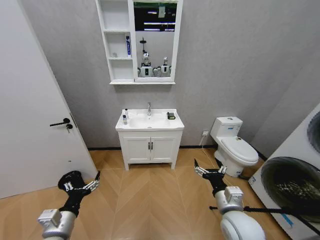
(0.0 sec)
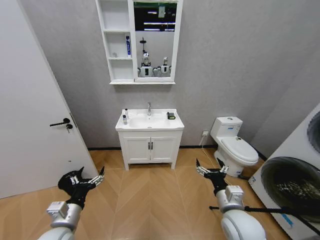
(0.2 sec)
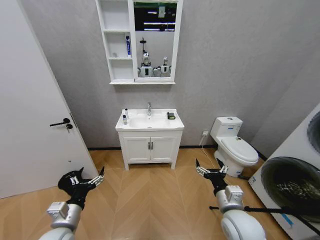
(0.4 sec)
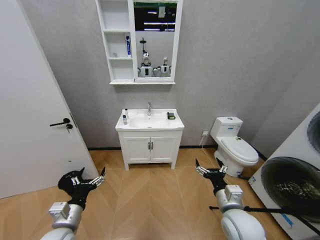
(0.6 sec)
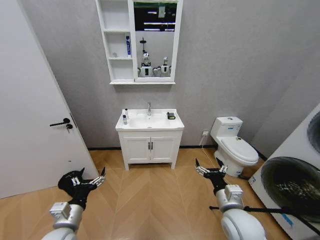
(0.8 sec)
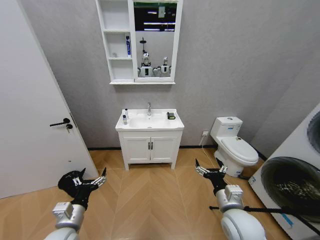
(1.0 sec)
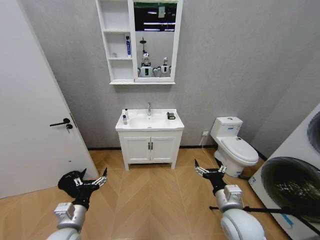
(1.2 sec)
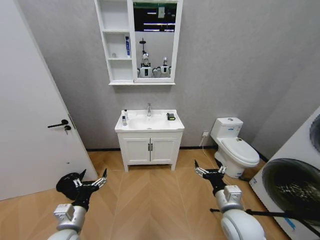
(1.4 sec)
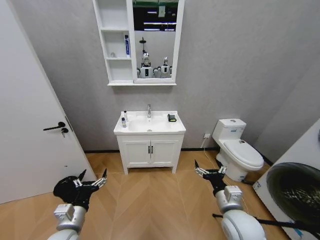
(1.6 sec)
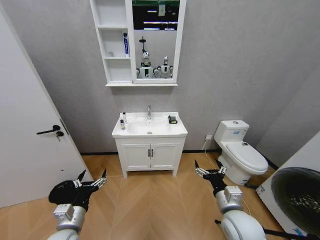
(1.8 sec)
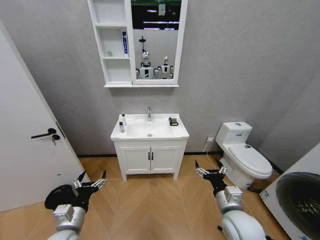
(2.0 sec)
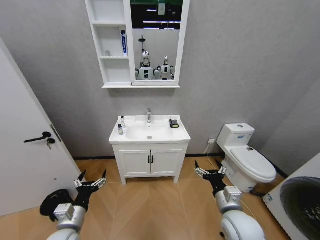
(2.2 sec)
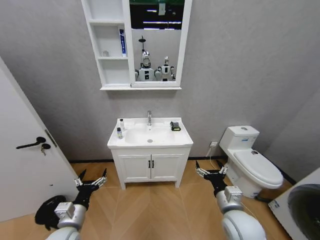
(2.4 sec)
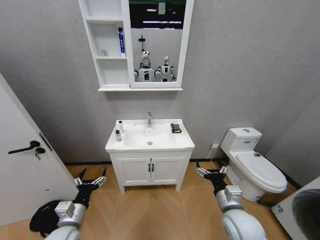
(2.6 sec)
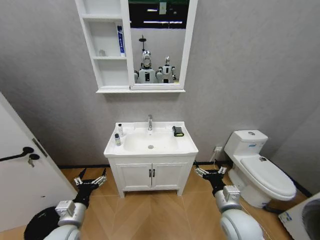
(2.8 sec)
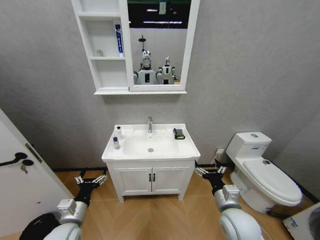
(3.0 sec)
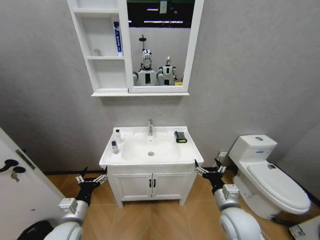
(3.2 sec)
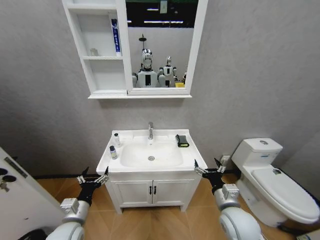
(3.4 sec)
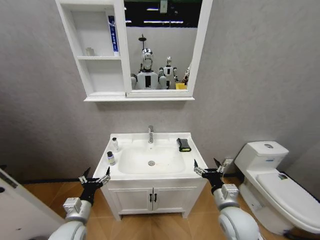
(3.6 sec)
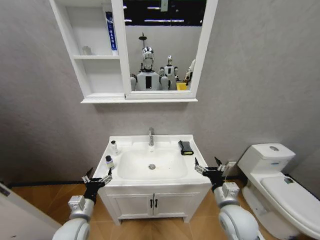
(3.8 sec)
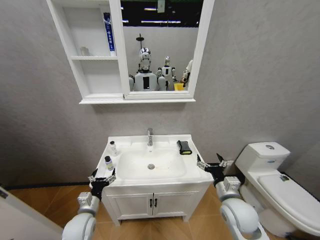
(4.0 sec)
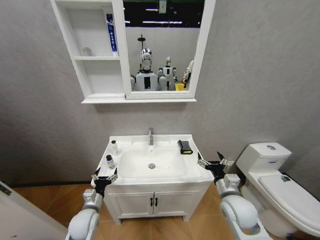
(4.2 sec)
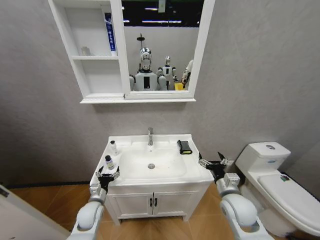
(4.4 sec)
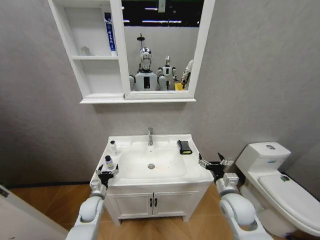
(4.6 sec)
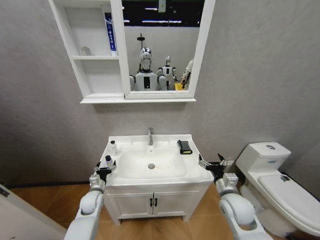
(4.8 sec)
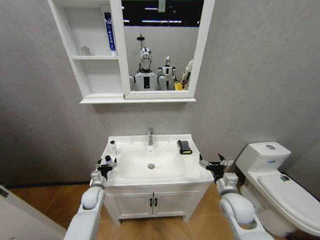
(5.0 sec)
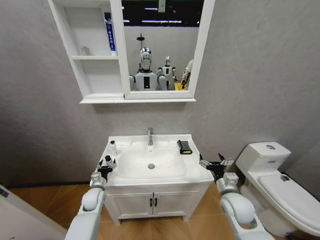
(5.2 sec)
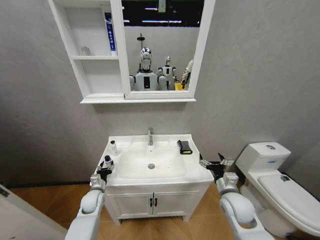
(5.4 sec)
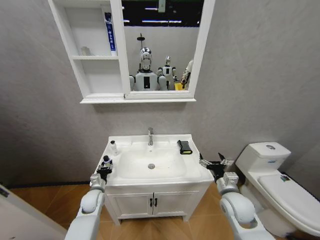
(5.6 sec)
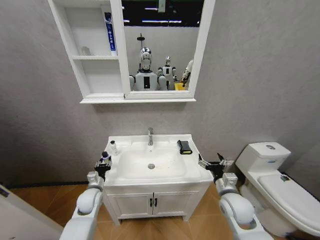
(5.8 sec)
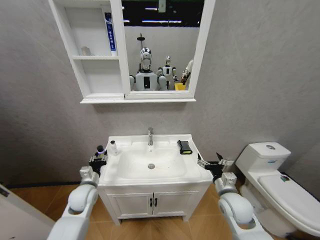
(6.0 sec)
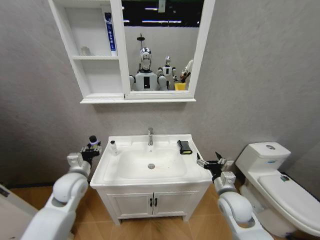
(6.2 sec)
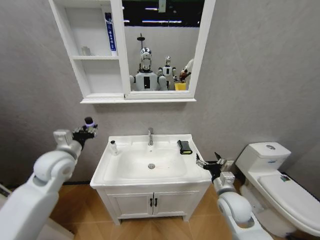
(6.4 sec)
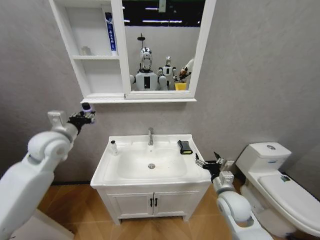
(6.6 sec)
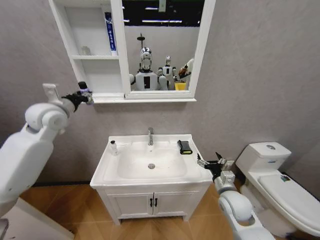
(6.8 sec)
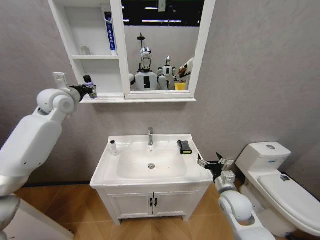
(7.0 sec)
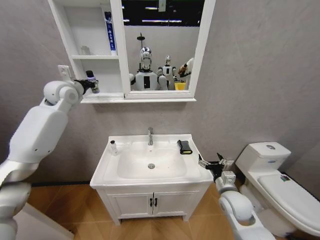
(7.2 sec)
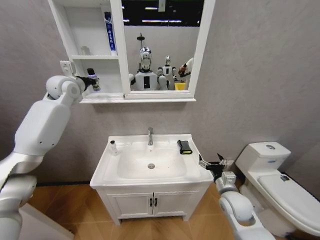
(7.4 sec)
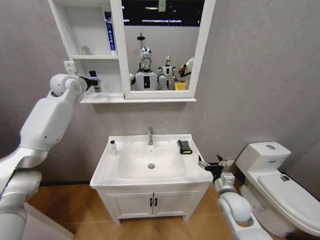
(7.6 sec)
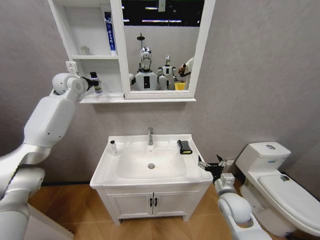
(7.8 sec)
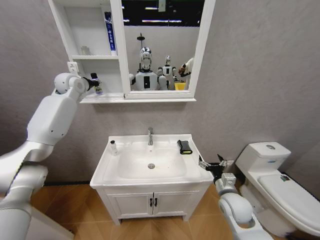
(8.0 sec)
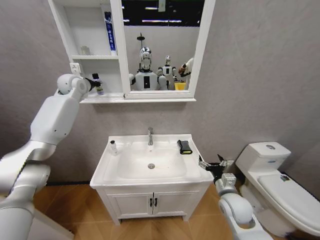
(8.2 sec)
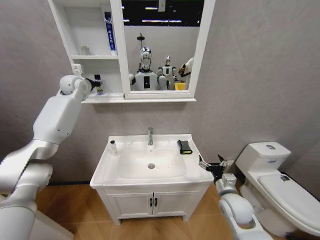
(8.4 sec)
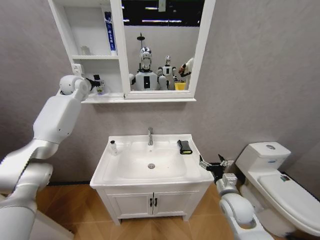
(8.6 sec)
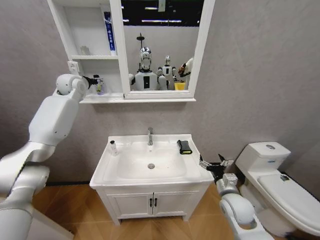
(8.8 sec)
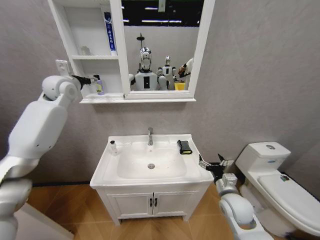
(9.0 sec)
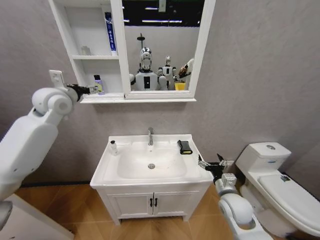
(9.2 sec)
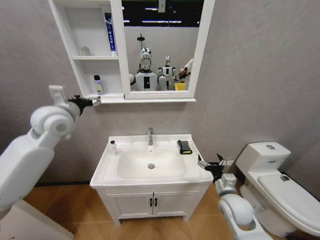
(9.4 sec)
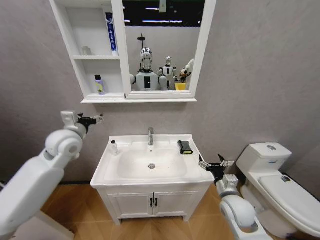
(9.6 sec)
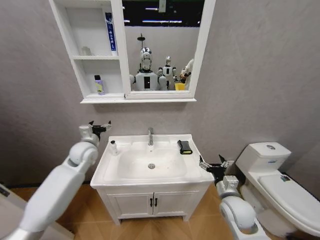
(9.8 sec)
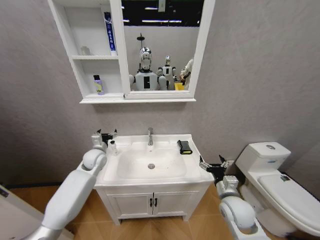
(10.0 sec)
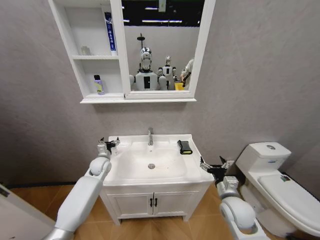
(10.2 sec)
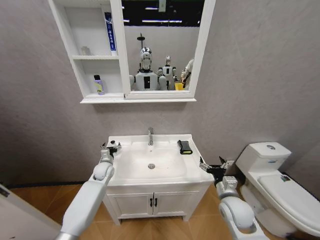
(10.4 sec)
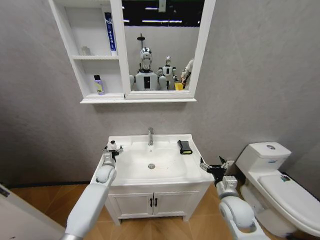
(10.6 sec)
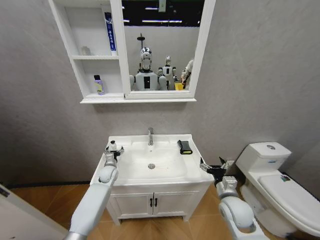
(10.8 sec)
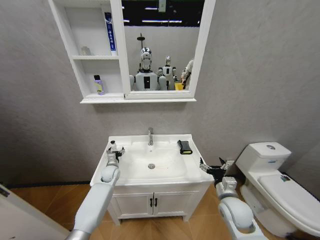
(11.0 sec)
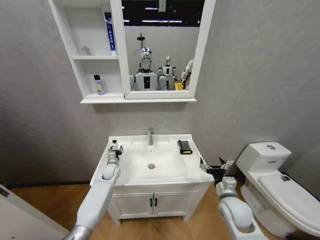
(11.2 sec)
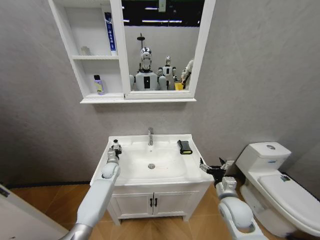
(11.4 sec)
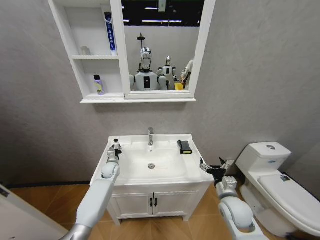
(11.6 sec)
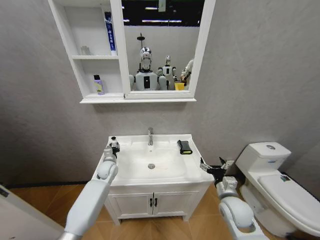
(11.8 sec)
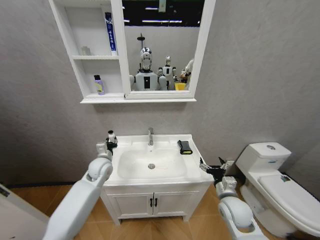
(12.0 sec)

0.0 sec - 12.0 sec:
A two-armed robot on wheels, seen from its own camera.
Task of the whole recording: Move facial cleanser and shampoo from washbasin to cabinet, then wipe washbasin with towel.
3.0 sec - 4.4 sec: The left gripper moves forward and downward, about 15 cm, while the right gripper moves roughly 5 cm.
4.4 sec - 6.0 sec: The left gripper shifts about 10 cm upward, and closes up.
6.0 sec - 7.6 sec: The left gripper heads upward and forward, covering some 40 cm.
7.6 sec - 9.0 sec: The left gripper opens.
9.0 sec - 10.4 sec: The left gripper moves downward, about 40 cm.
10.4 sec - 12.0 sec: The left gripper goes roughly 10 cm upward, and closes.

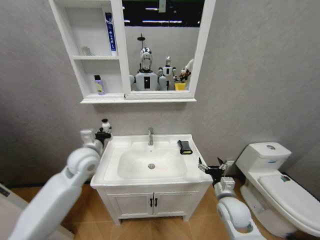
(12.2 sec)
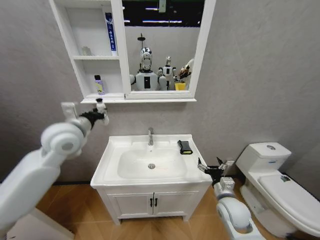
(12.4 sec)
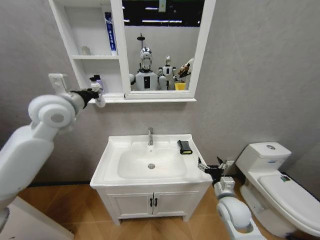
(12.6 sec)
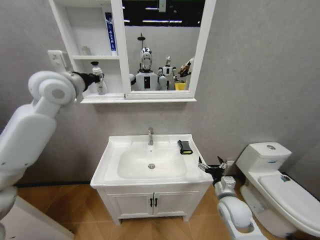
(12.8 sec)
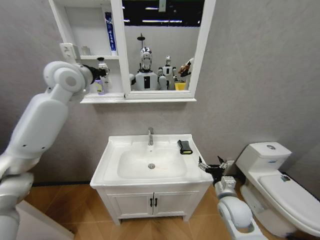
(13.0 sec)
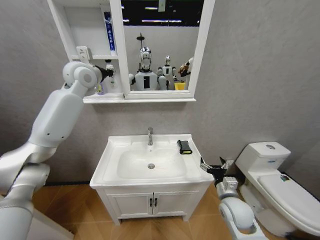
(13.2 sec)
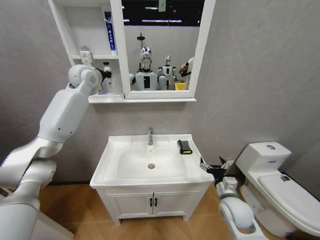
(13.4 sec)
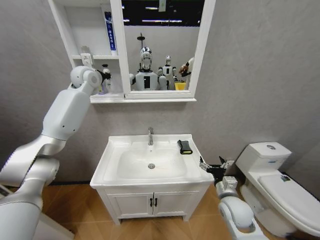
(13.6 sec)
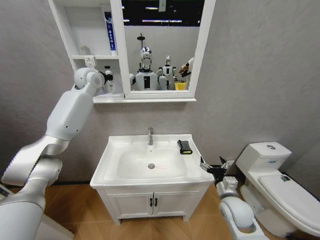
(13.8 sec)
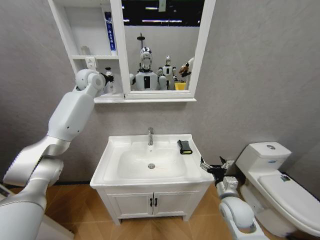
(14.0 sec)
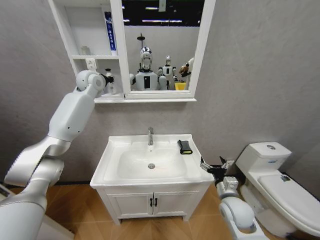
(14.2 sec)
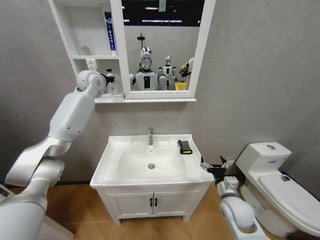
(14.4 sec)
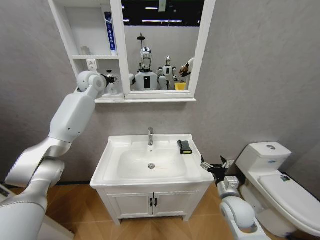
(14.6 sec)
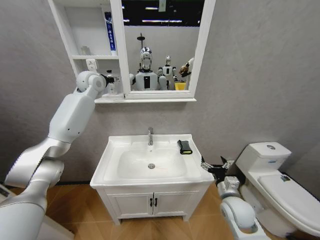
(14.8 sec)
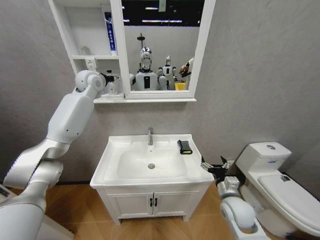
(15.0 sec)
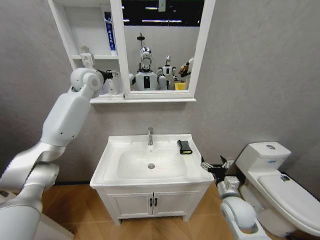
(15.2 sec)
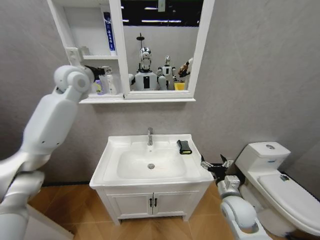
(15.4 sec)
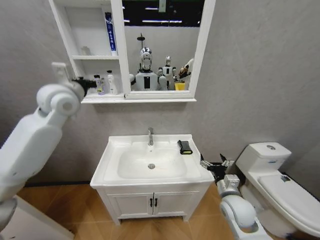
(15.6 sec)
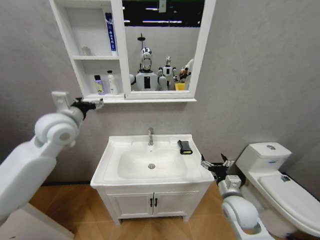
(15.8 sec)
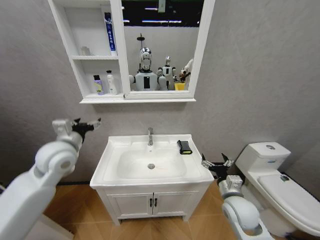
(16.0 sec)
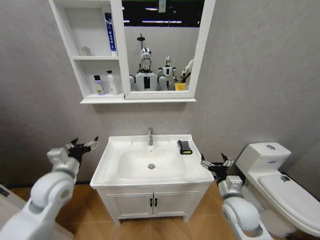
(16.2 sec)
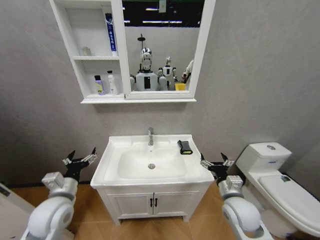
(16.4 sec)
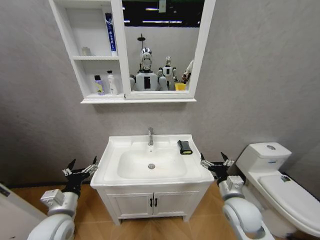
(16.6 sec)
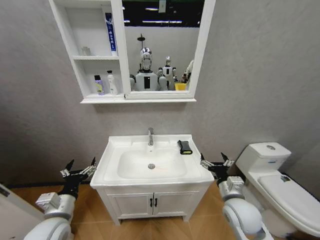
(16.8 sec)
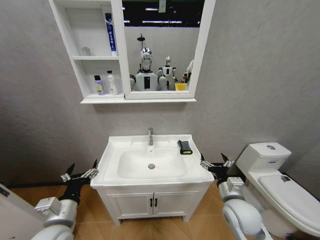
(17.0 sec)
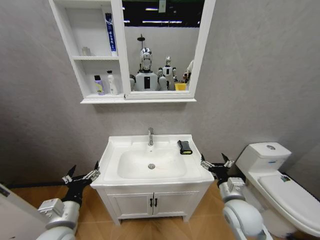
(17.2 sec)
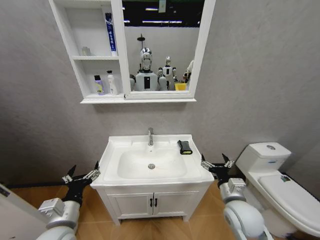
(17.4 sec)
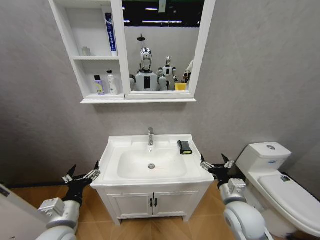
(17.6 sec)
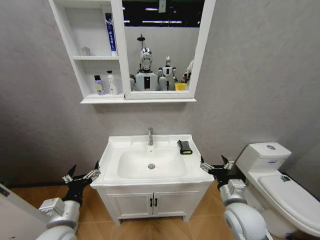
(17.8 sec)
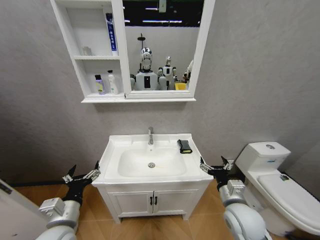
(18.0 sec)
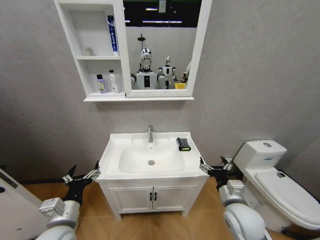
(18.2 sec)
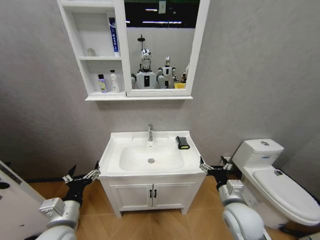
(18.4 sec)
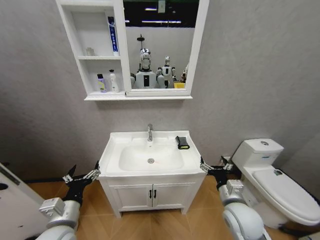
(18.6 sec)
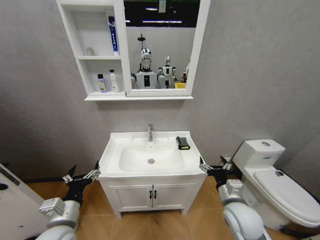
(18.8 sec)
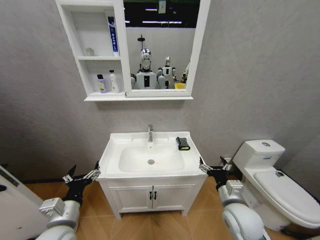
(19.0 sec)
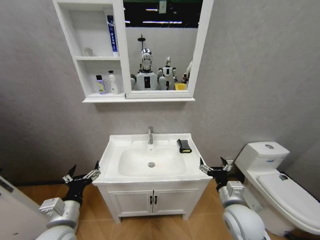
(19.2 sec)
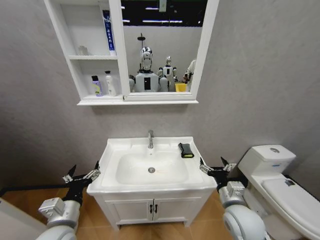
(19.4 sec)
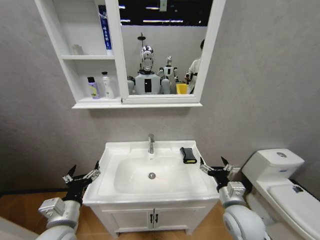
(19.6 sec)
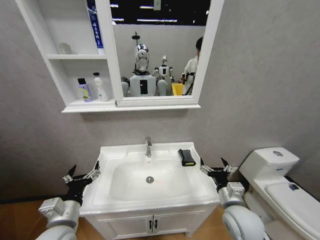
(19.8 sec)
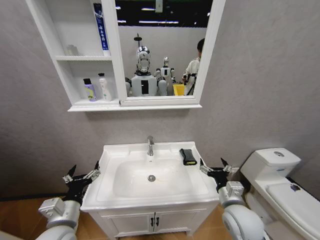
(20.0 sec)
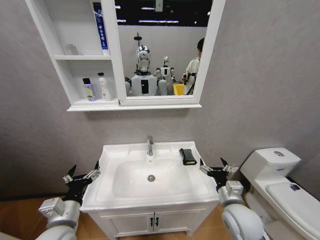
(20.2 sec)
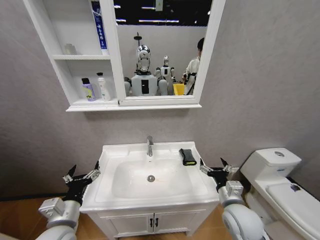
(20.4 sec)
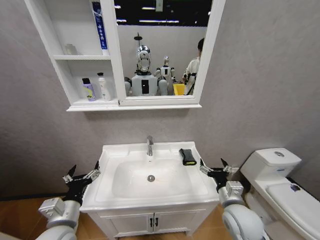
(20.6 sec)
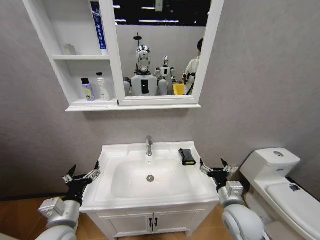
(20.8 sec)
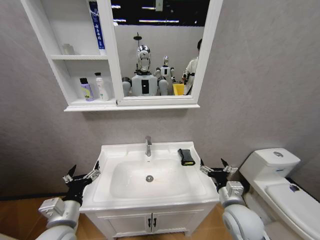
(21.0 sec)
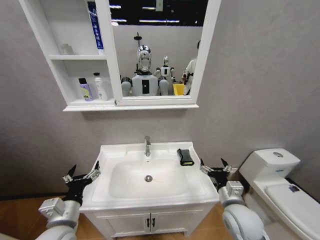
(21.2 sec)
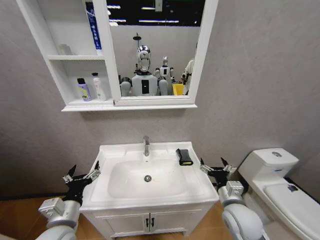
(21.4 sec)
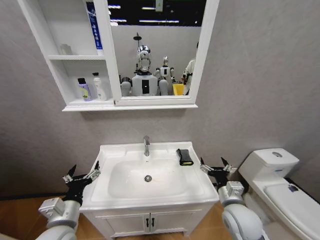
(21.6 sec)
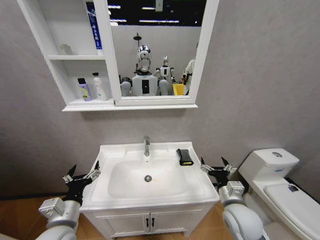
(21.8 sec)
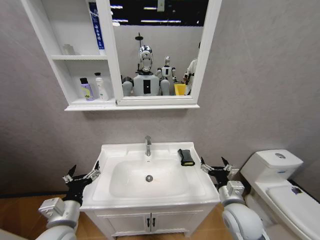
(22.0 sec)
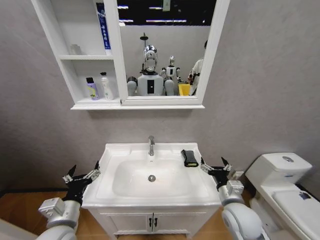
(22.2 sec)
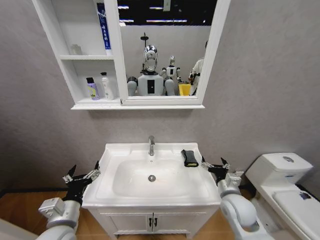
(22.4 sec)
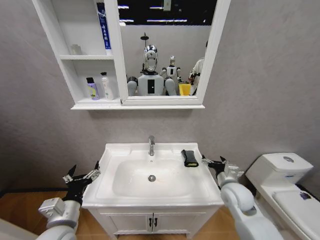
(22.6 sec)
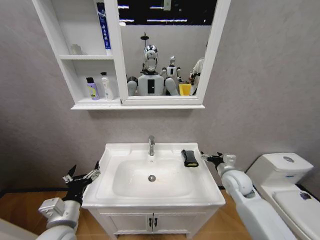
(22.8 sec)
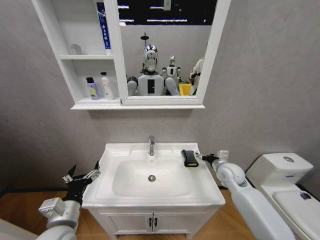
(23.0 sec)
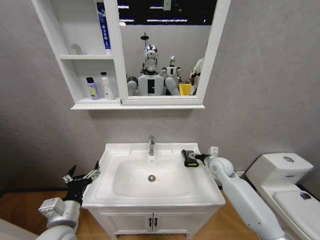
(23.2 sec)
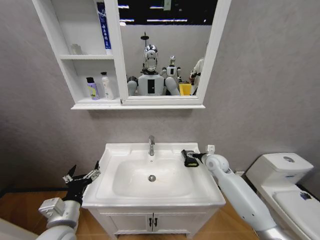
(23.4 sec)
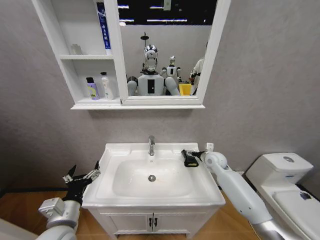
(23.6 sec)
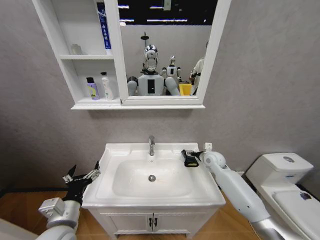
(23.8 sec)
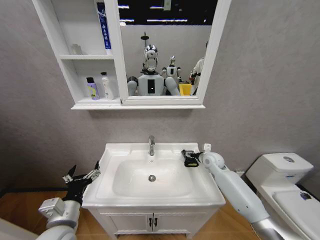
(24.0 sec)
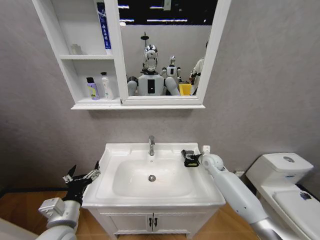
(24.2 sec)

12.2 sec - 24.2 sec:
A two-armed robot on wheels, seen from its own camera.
Task of the whole recording: Move facial cleanser and shampoo from washbasin to cabinet, then wipe washbasin with towel.
12.2 sec - 13.8 sec: The left gripper goes about 30 cm forward and upward.
13.8 sec - 15.2 sec: The left gripper opens up.
15.2 sec - 16.6 sec: The left gripper is displaced backward and downward by about 50 cm.
16.6 sec - 18.2 sec: The grippers stay close to where they were, moving slightly.
19.8 sec - 21.2 sec: Both grippers stay put.
21.2 sec - 22.6 sec: The right gripper goes roughly 5 cm forward.
22.6 sec - 24.2 sec: The right gripper shifts about 20 cm forward.
